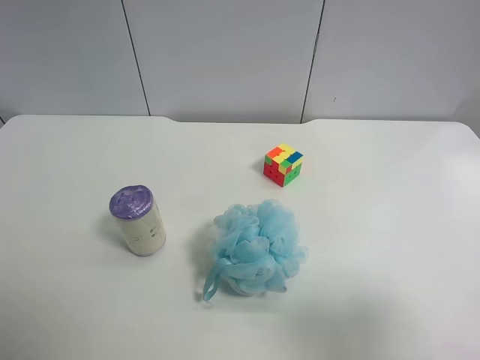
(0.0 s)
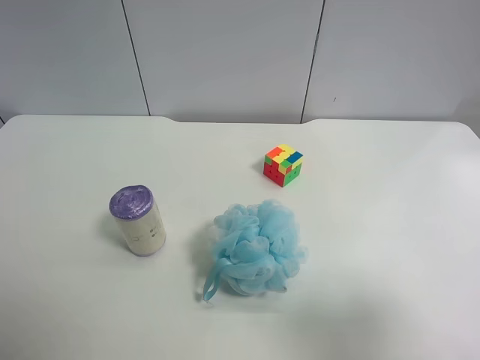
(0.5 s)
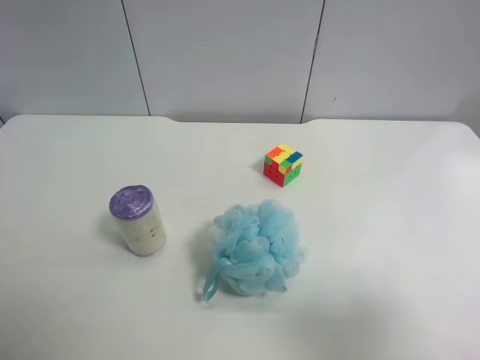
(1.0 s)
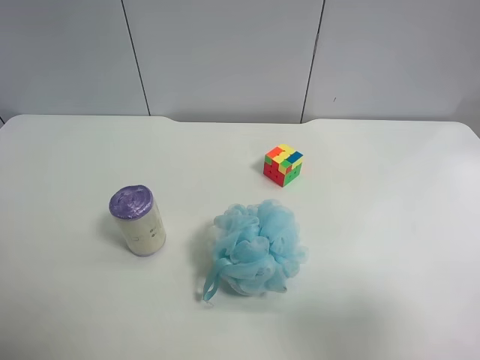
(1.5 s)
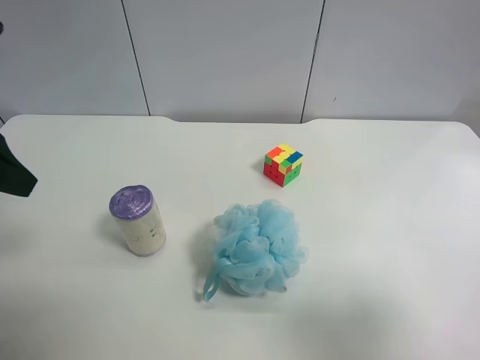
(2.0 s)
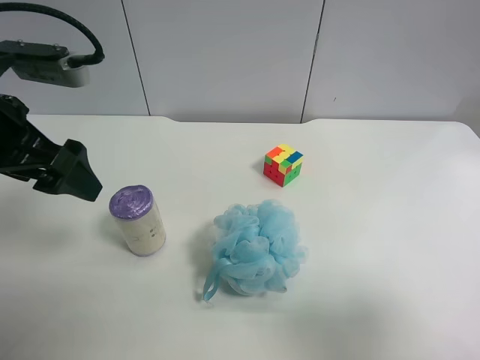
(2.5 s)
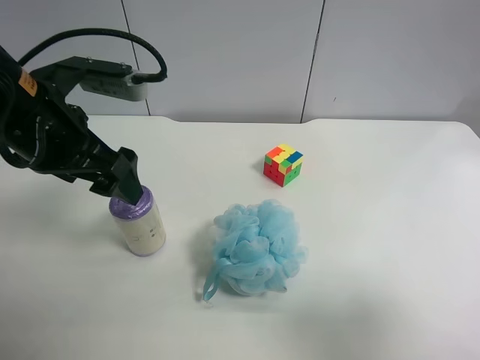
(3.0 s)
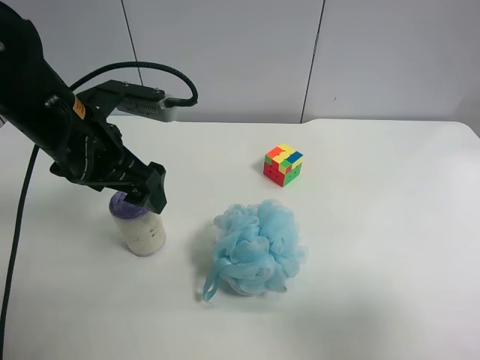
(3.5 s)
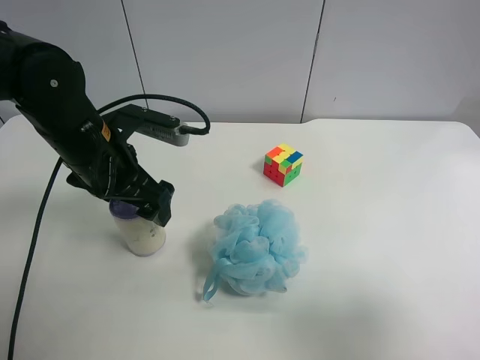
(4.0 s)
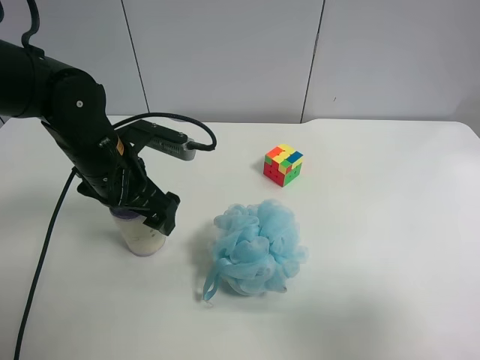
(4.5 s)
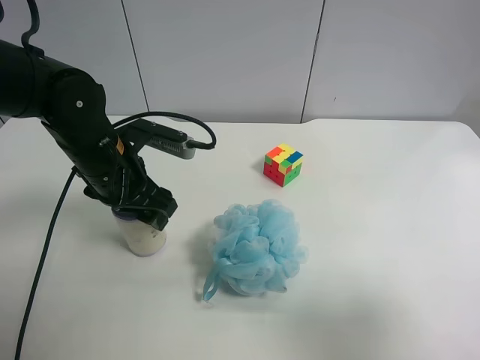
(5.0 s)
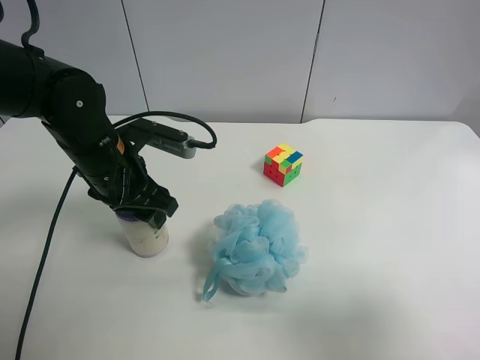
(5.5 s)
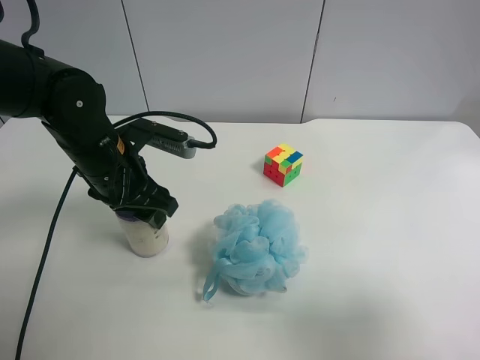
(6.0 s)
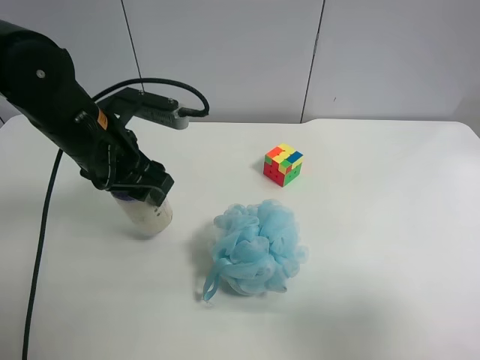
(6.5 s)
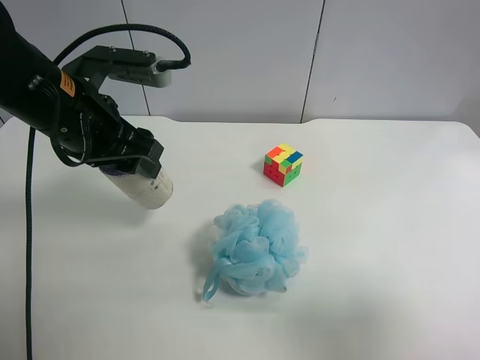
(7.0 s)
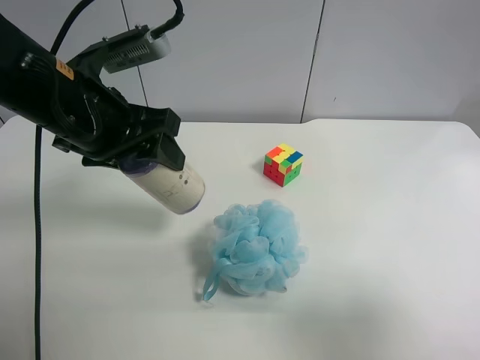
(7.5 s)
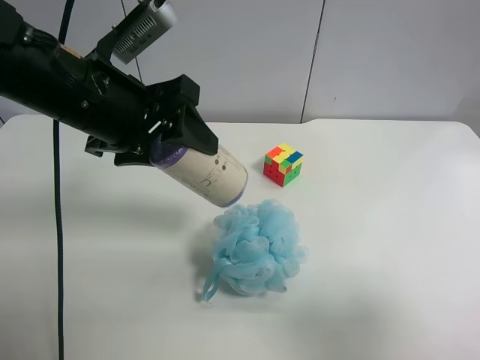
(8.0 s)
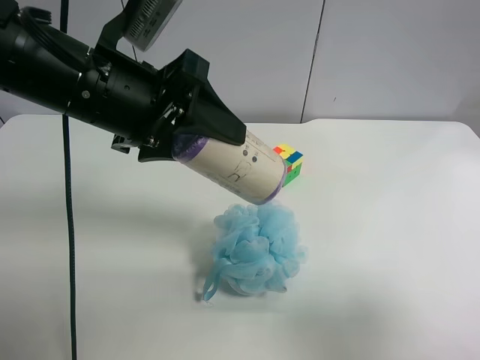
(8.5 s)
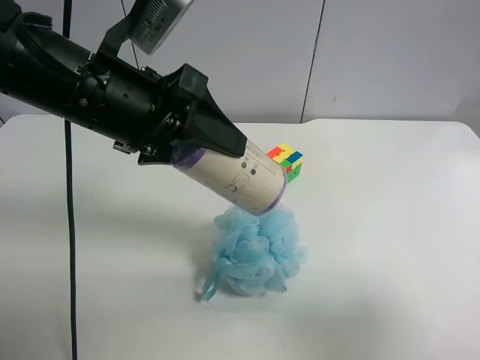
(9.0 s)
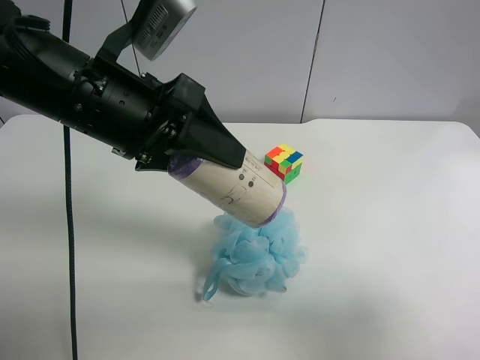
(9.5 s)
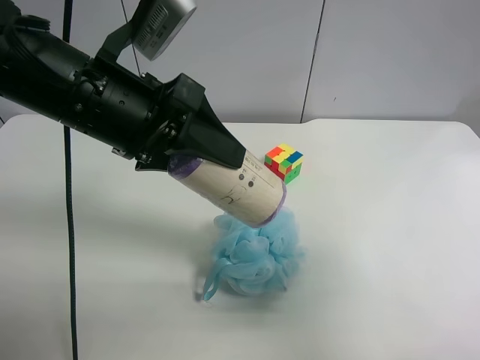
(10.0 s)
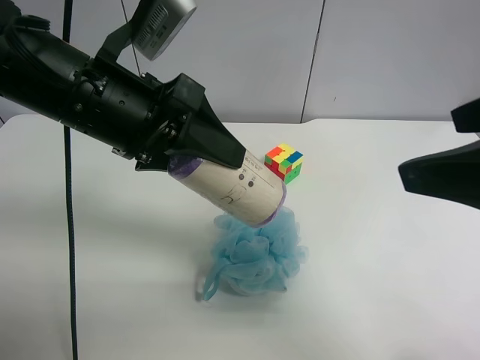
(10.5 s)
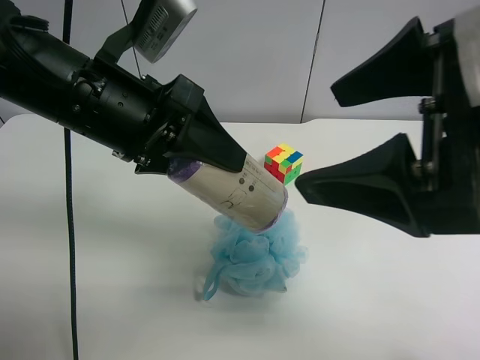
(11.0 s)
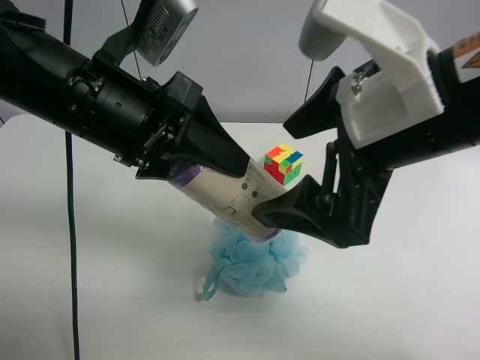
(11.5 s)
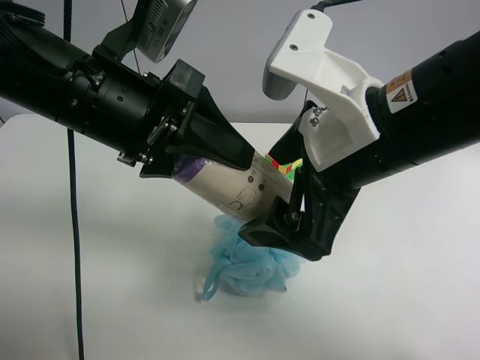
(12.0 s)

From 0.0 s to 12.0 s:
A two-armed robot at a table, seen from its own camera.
Task of the whole recording: use the left gripper to pick up the item and transfer it from the left gripper to the right gripper.
From 0.0 s to 2.0 s: The left gripper travels forward by about 20 cm.
From 2.0 s to 4.0 s: The left gripper heads to the right, downward and forward, covering about 20 cm.
From 4.0 s to 6.0 s: The left gripper closes up.
From 6.0 s to 8.0 s: The left gripper heads upward, covering roughly 10 cm.
From 8.0 s to 10.0 s: The right gripper moves forward, some 5 cm.
From 10.0 s to 12.0 s: The right gripper shifts about 20 cm to the left and forward.

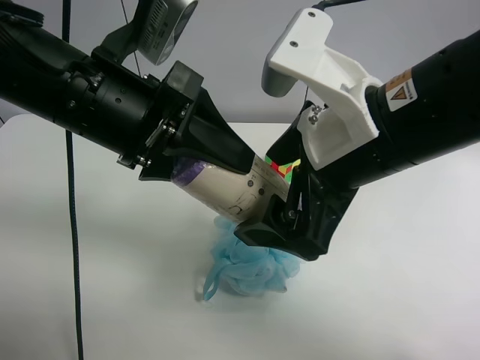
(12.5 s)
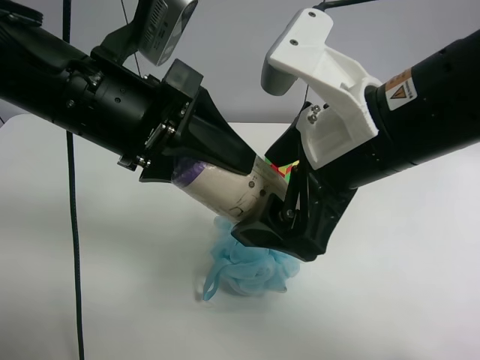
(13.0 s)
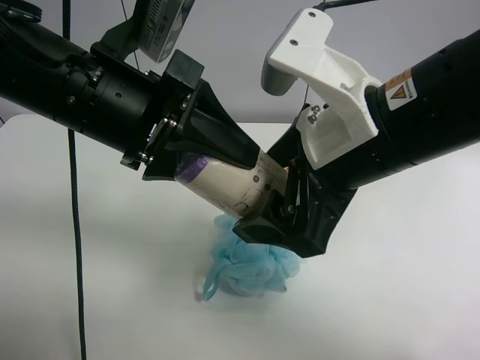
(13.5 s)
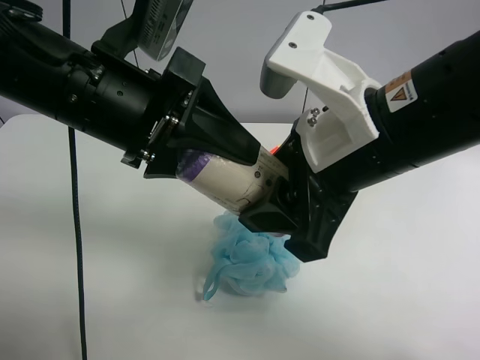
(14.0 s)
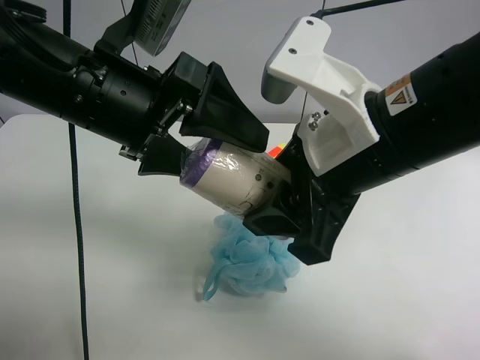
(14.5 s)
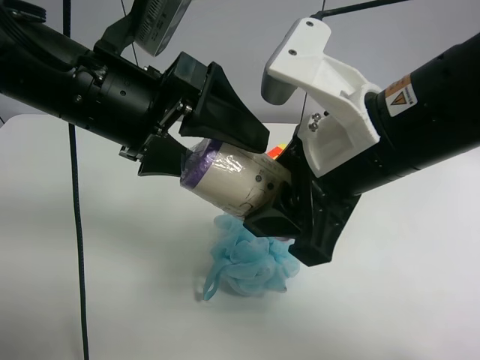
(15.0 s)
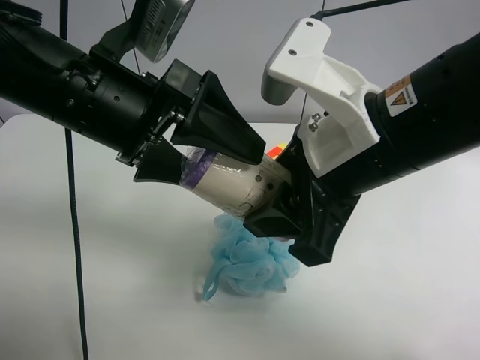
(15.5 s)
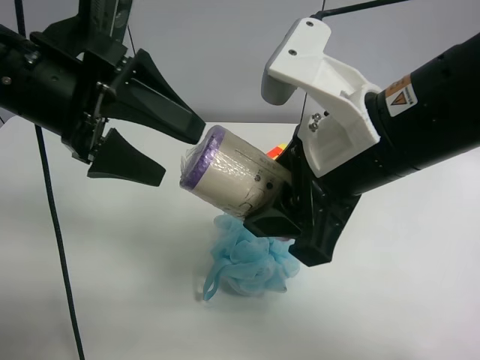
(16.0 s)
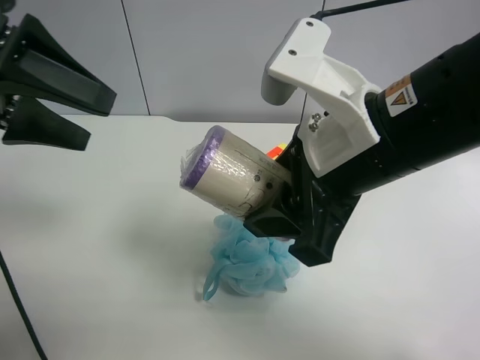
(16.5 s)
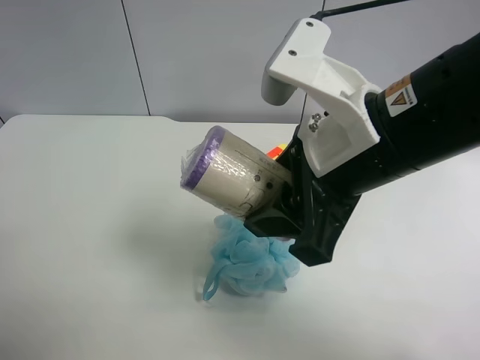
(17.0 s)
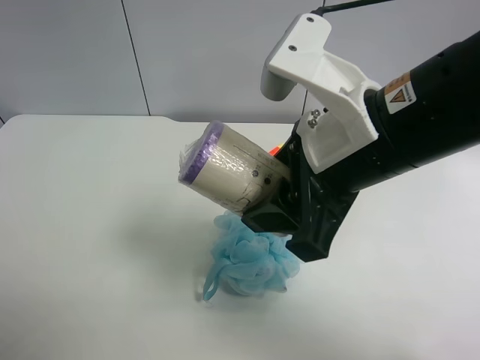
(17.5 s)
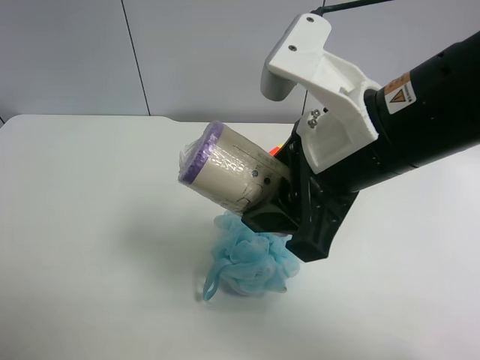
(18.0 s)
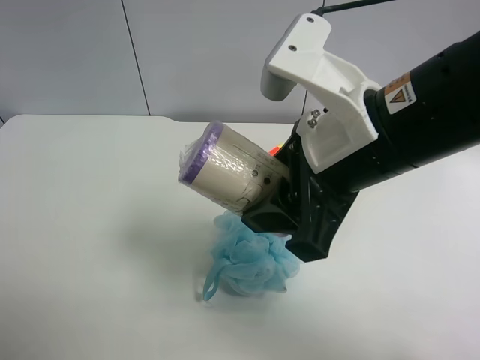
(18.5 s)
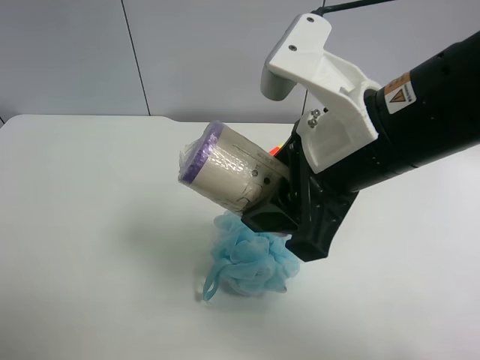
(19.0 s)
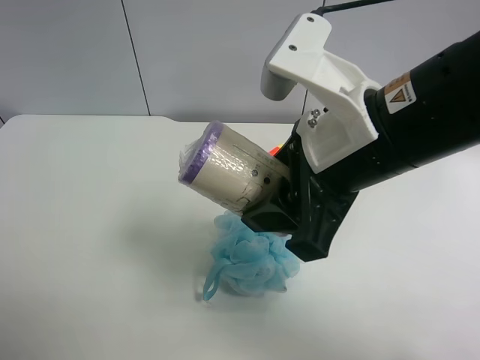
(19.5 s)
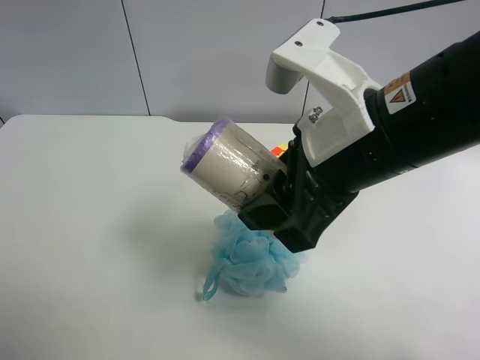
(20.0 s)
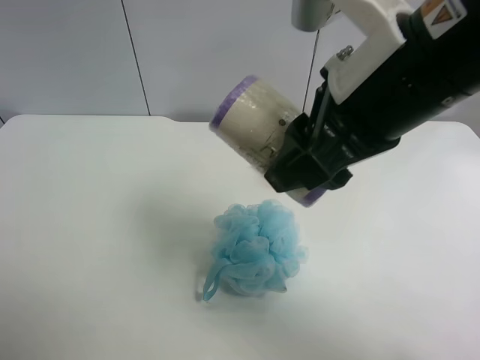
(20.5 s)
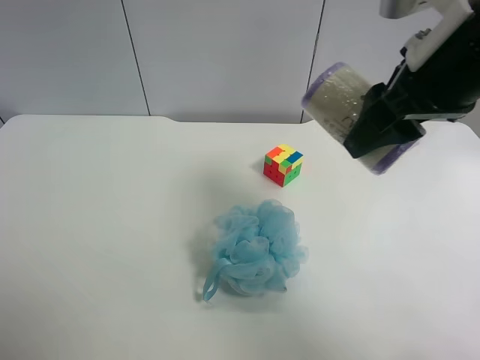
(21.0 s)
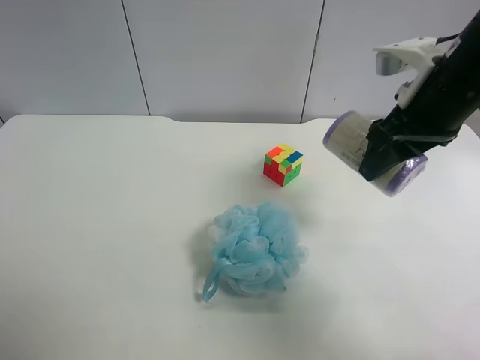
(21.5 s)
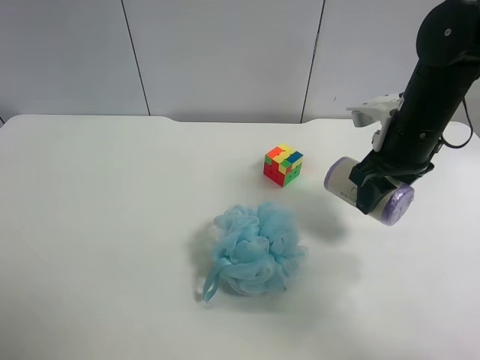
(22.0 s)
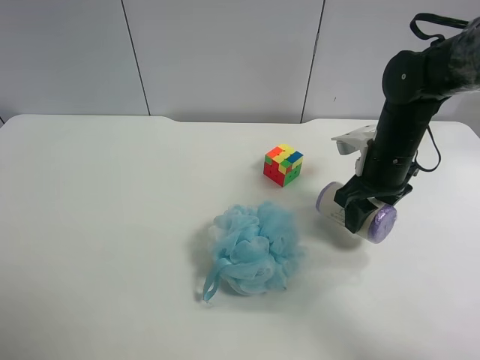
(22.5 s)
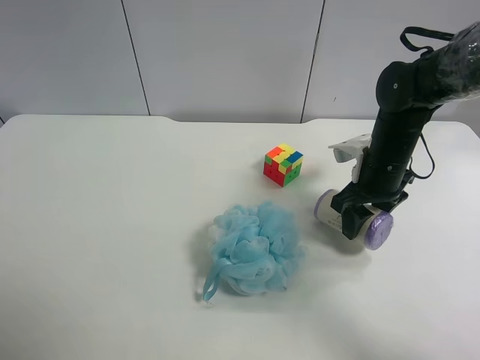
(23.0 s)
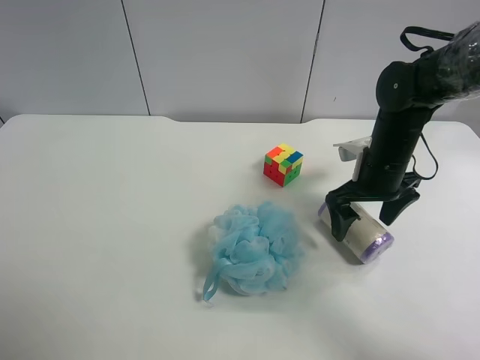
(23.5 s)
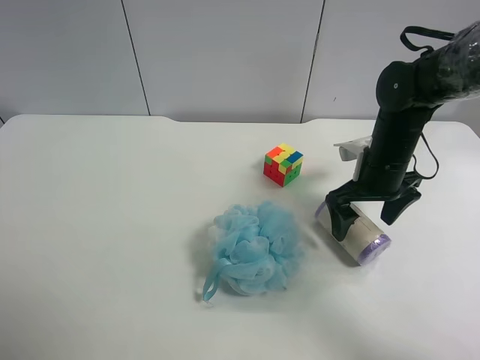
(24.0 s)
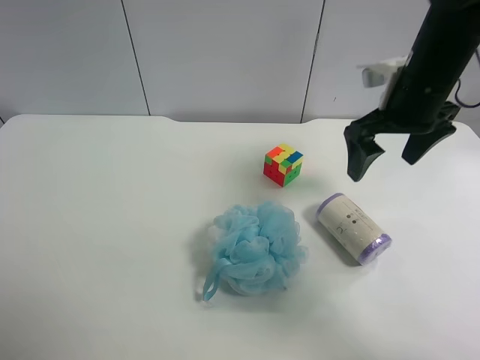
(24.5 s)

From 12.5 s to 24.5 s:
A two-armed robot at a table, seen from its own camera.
Task of the whole recording: use the left gripper to pick up the item and transfer it from the left gripper to the right gripper.
From 12.5 s to 14.5 s: The right gripper closes its fingers. The left gripper opens up.
From 14.5 s to 16.5 s: The left gripper shifts approximately 15 cm to the left.
From 16.5 s to 18.5 s: The left gripper moves backward, about 20 cm.
From 20.5 s to 22.5 s: The right gripper travels downward, forward and to the right by roughly 25 cm.
From 22.5 s to 24.5 s: The right gripper shifts approximately 10 cm upward, and opens up.

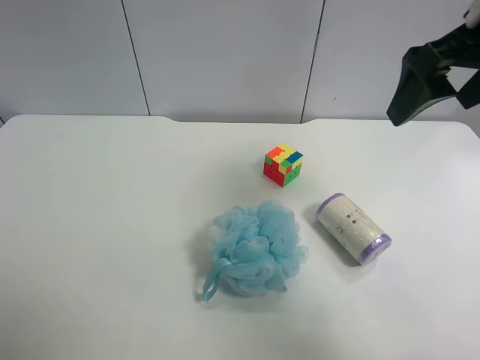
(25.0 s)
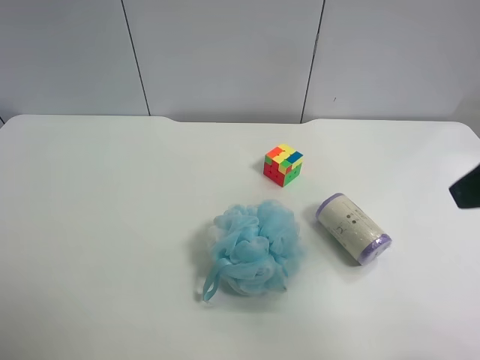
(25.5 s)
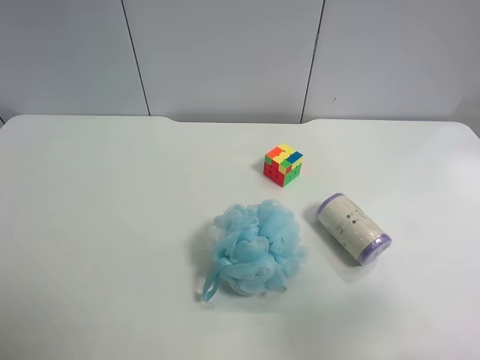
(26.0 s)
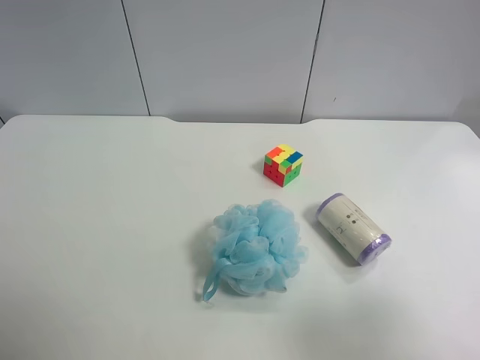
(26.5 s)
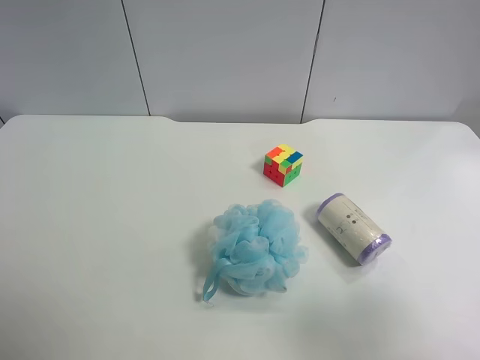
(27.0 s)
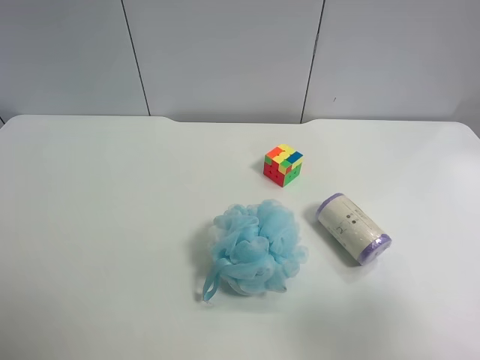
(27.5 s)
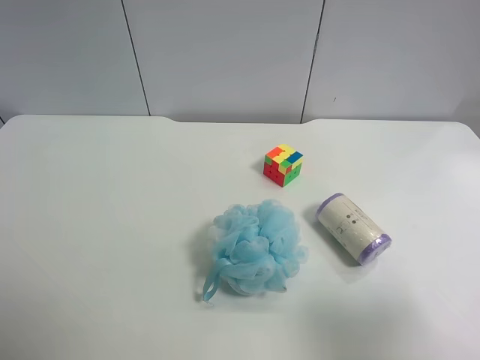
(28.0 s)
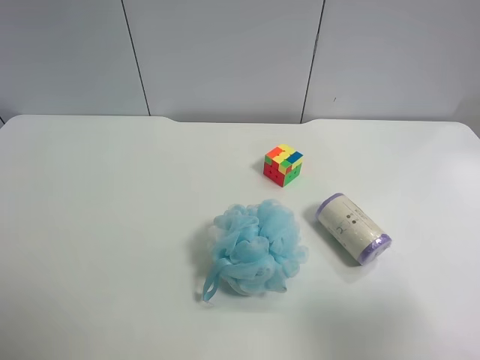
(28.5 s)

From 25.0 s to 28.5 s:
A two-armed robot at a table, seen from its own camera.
Task of the whole recording: use the left gripper to pick up the item and transfer it from the left gripper to the right gripper.
From 25.0 s to 27.0 s: The right gripper shifts approximately 25 cm backward.
